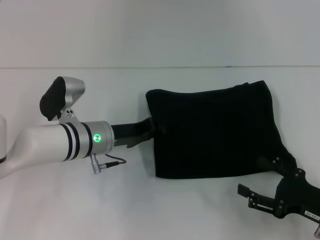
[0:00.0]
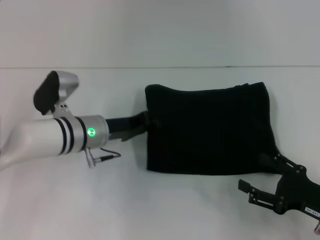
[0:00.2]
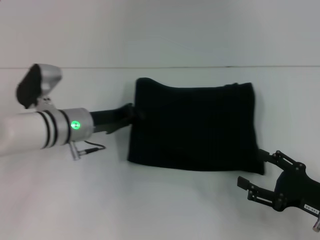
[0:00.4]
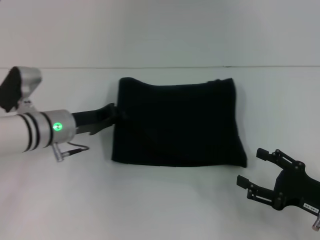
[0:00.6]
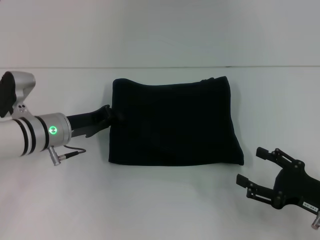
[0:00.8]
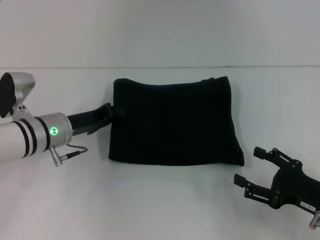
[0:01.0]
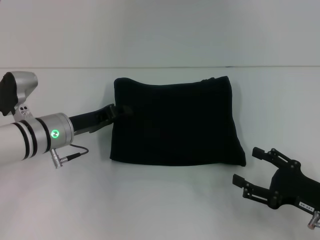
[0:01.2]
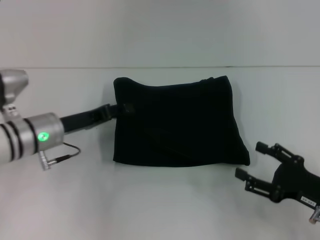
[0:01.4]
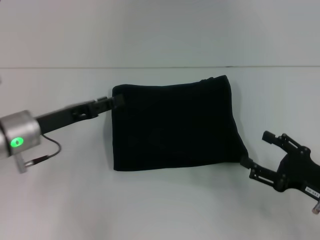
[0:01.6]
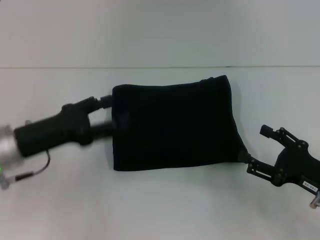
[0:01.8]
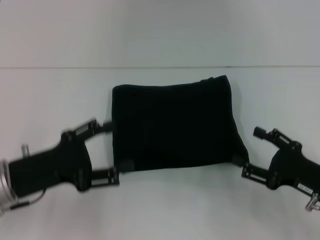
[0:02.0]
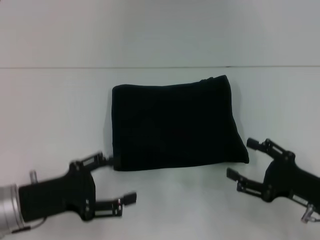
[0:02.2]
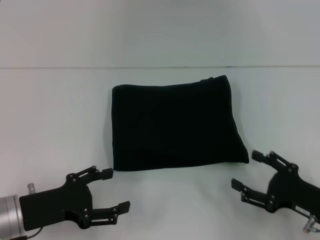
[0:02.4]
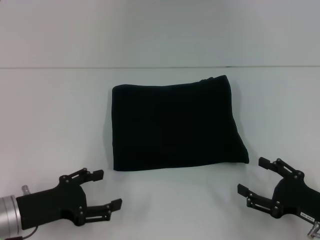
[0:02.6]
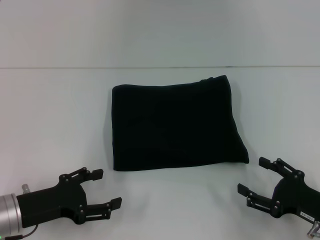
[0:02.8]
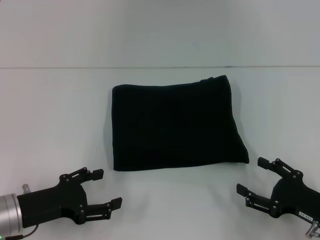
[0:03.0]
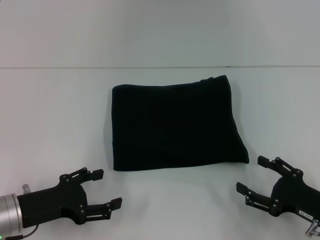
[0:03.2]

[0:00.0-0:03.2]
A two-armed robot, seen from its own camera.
0:00.0 to 0:01.6: The left gripper goes some 10 cm to the left, and opens its fingers.
0:01.6 to 0:03.2: The left gripper heads backward and downward, covering approximately 10 cm, and opens its fingers.
